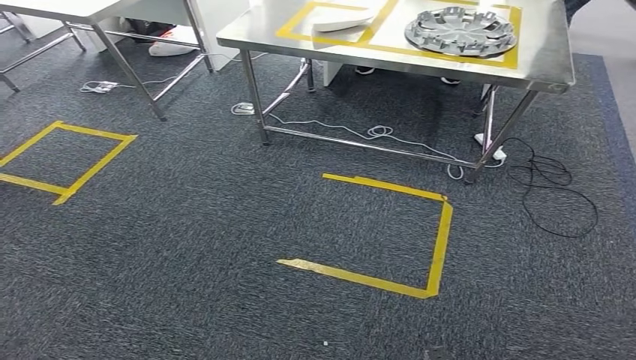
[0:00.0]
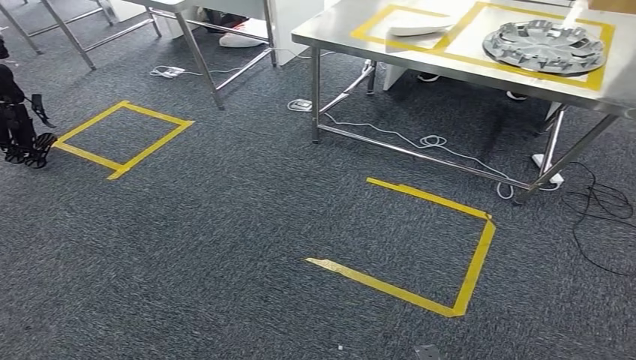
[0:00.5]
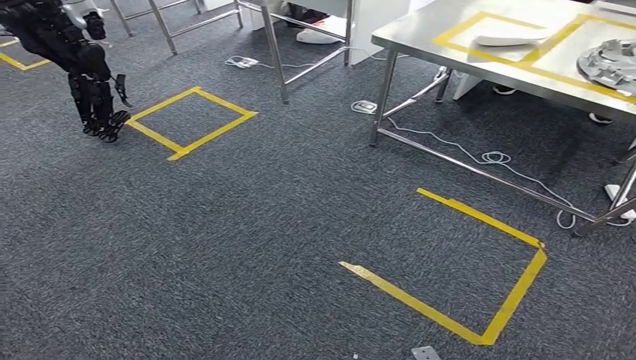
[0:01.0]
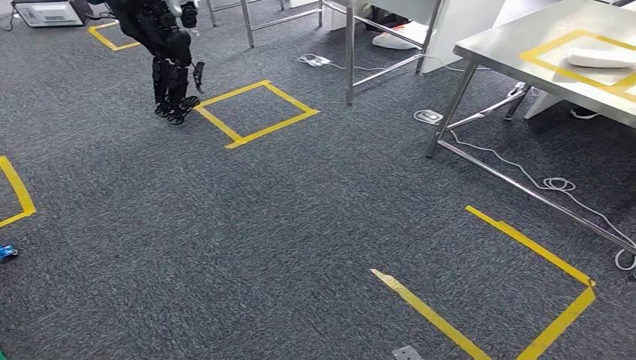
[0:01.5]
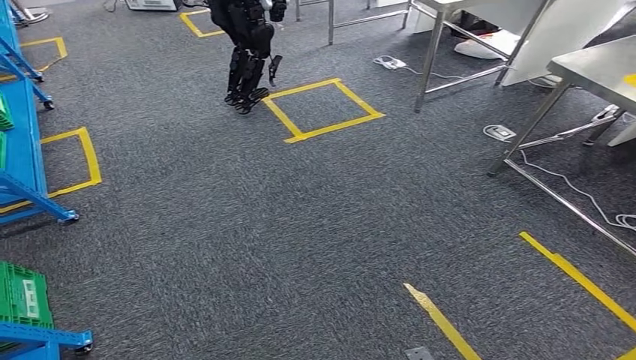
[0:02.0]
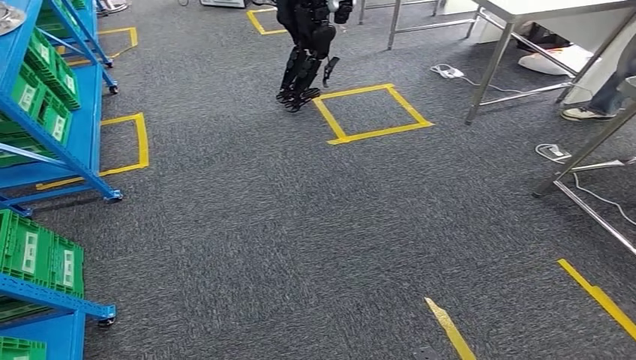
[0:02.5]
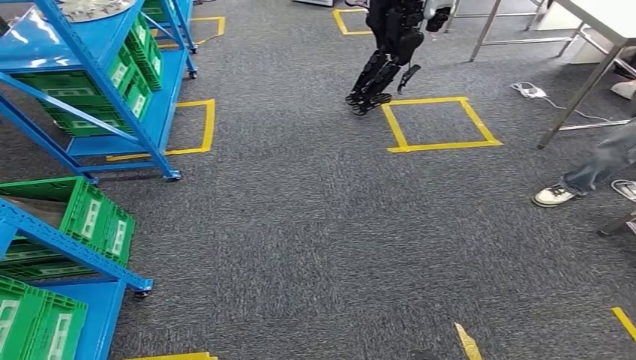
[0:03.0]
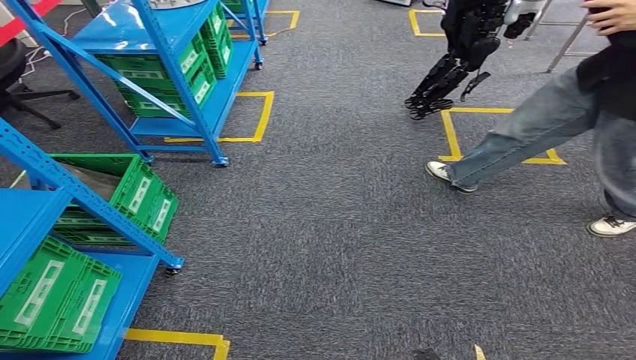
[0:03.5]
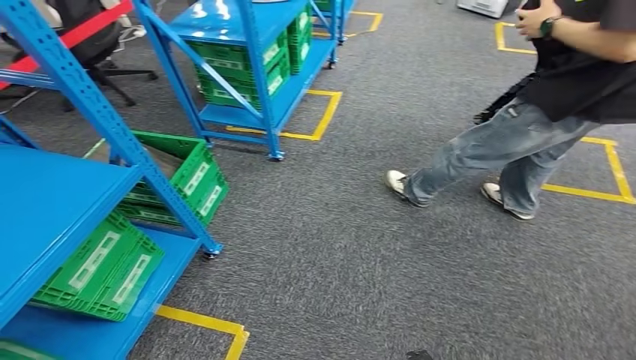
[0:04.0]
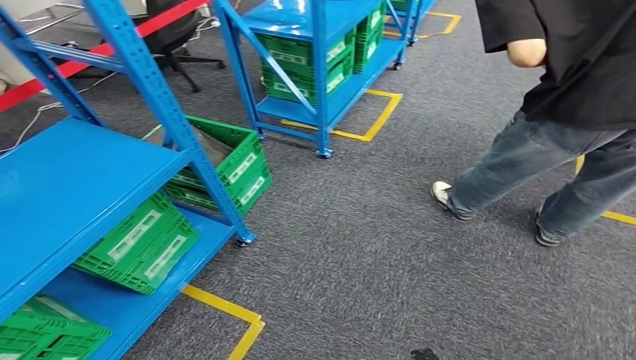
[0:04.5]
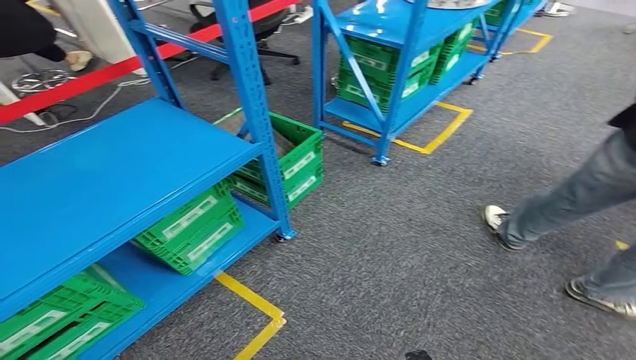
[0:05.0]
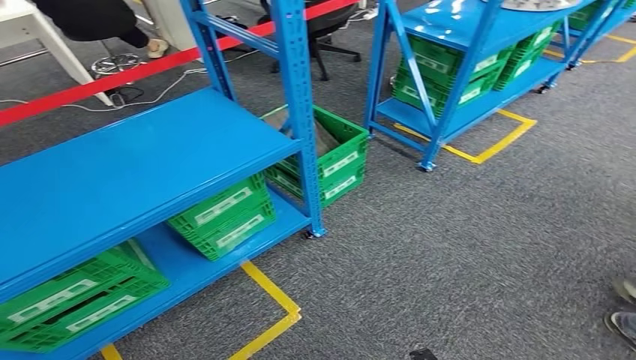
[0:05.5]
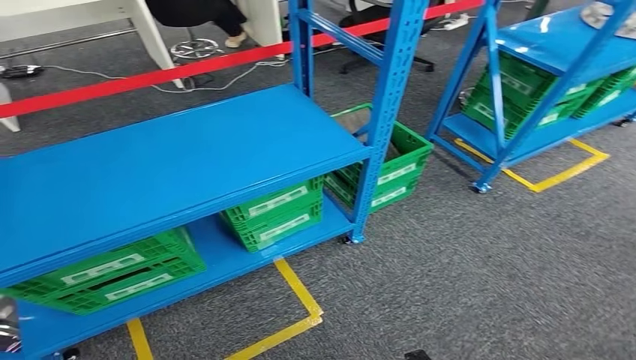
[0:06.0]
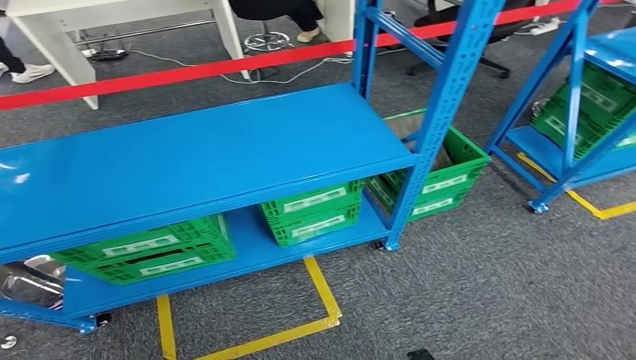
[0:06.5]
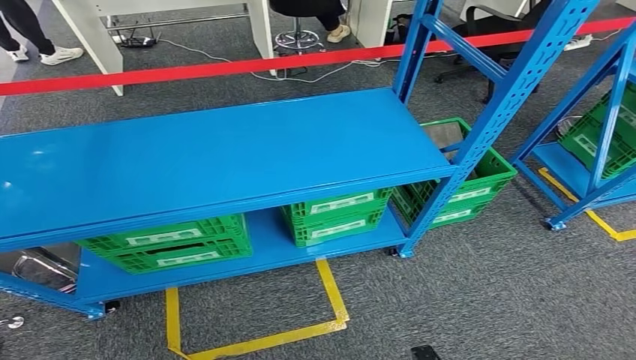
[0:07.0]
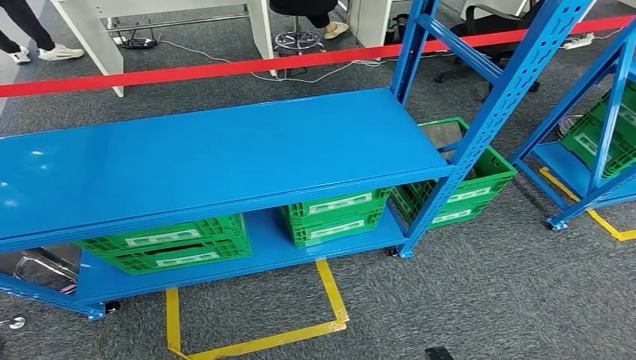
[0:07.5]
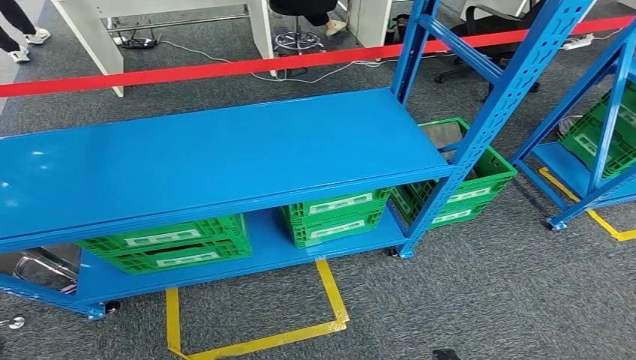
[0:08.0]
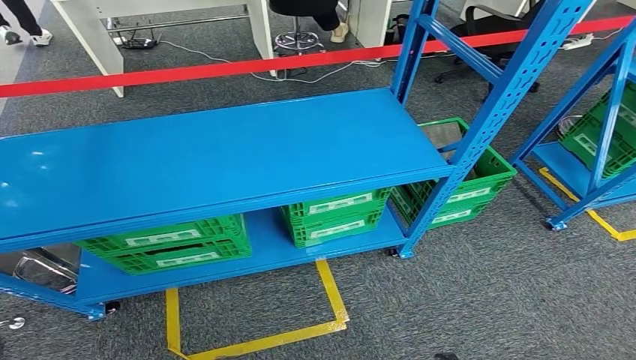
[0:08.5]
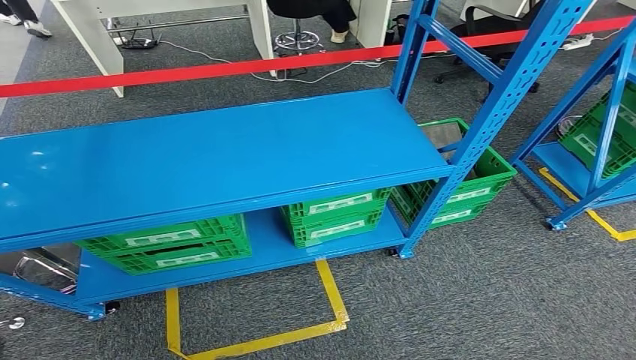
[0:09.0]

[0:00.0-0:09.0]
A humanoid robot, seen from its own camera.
Step, 0:00.0 to 0:09.0: Move to the initial position of the workbench.
0:07.0 to 0:09.0: The right hand ends up some 5 cm from where it was. Meanwhile the left hand travels to the left and backward by about 10 cm.
